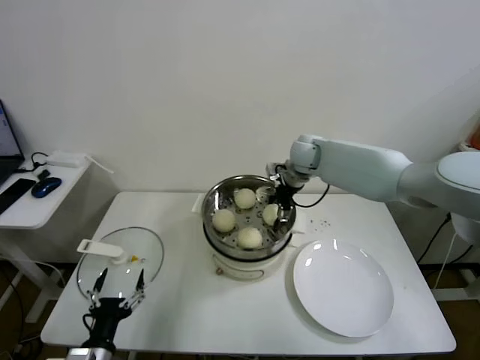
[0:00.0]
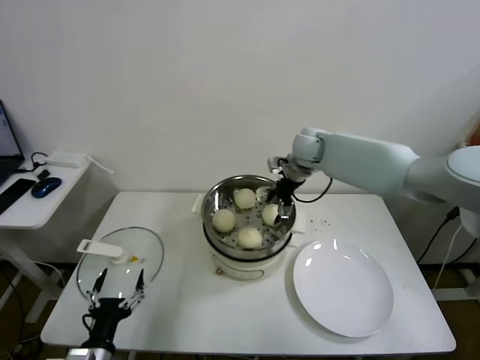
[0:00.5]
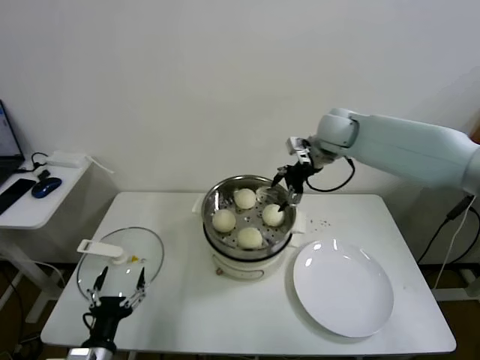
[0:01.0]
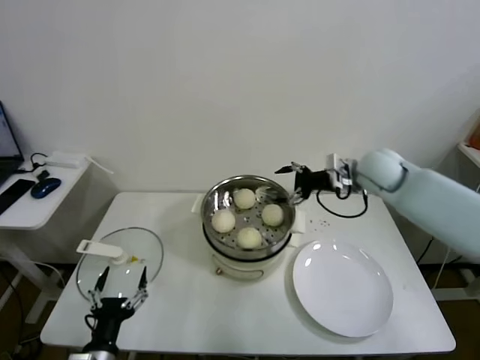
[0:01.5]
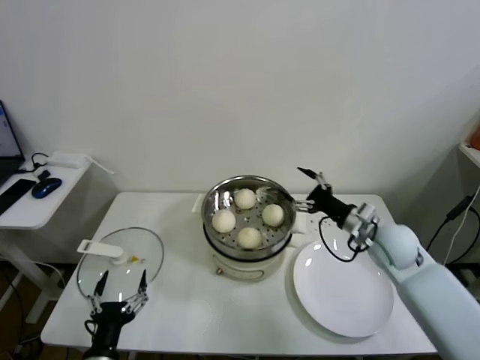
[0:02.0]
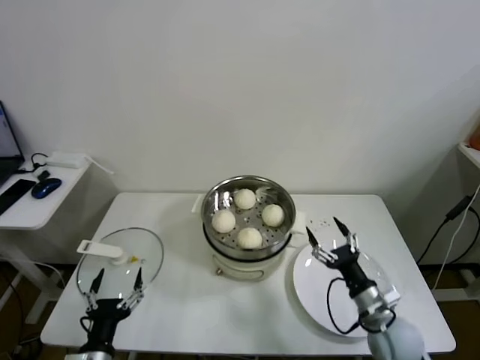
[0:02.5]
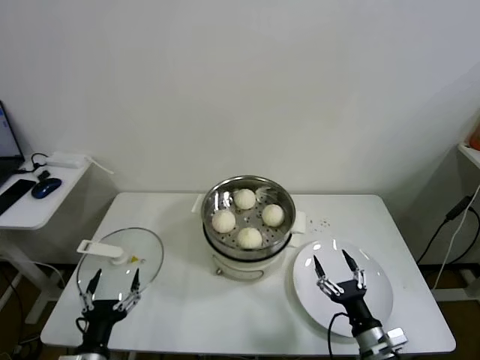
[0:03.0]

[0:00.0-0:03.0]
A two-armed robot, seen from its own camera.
Task of the whole recording: take steamed baozi put them in steamer.
0:00.0 to 0:01.5: The right gripper travels to the right and backward by approximately 15 cm, and opens up.
0:01.5 to 0:03.0: The right gripper travels backward and downward by about 40 cm.

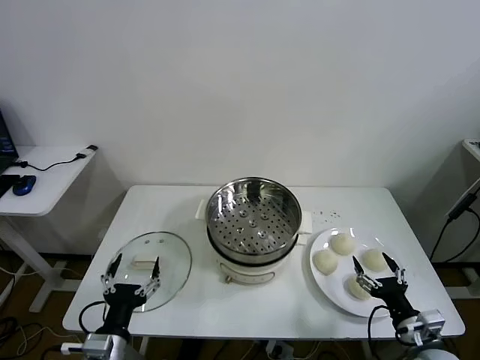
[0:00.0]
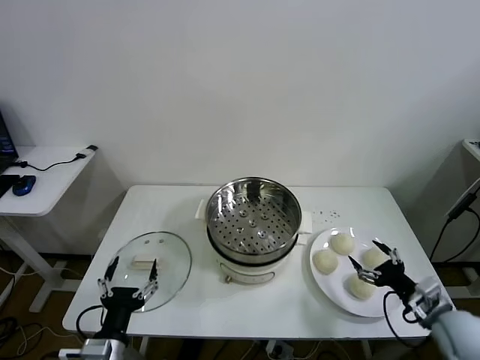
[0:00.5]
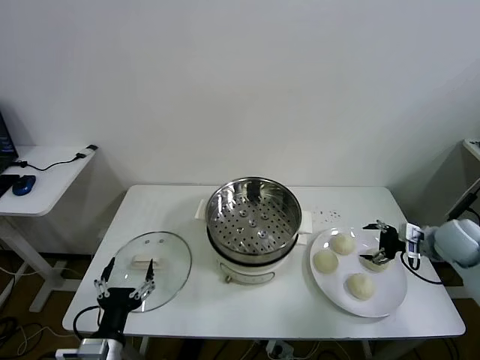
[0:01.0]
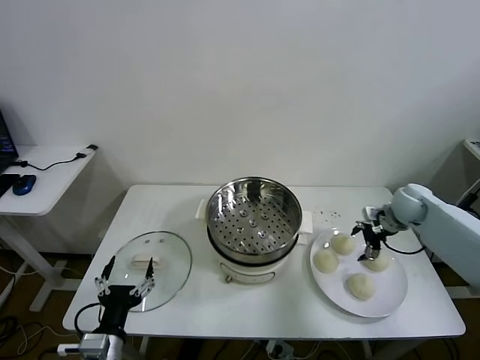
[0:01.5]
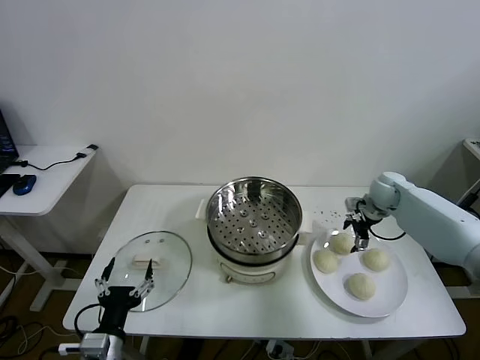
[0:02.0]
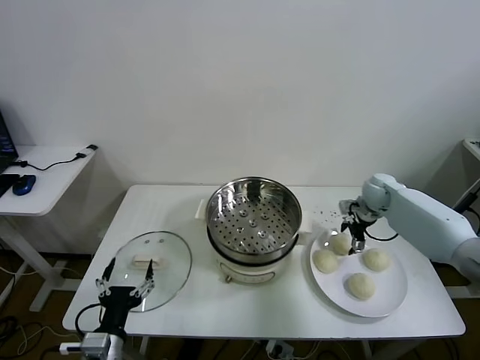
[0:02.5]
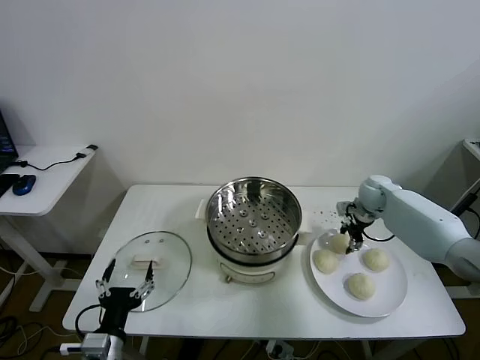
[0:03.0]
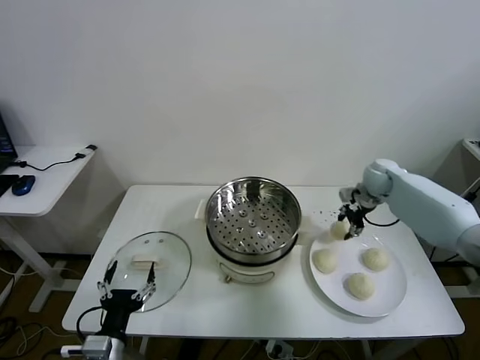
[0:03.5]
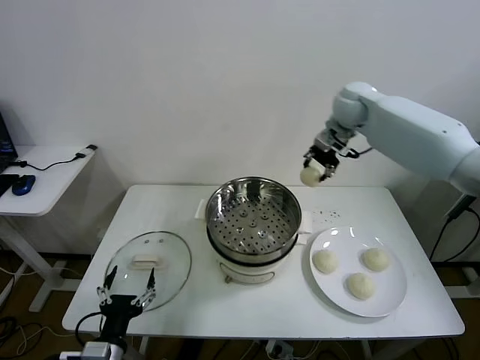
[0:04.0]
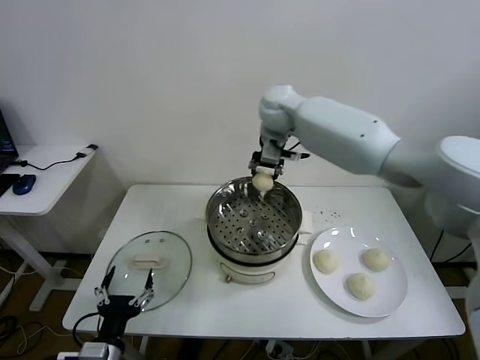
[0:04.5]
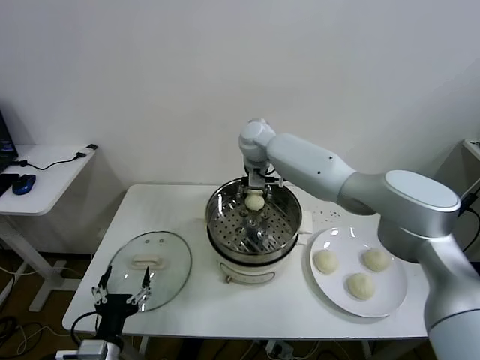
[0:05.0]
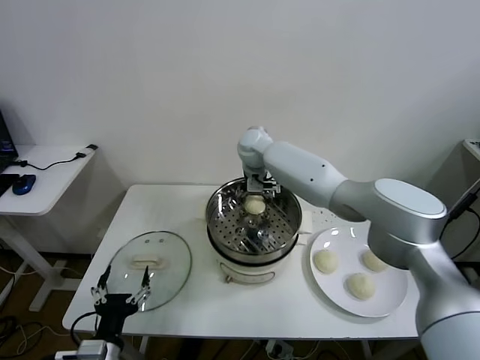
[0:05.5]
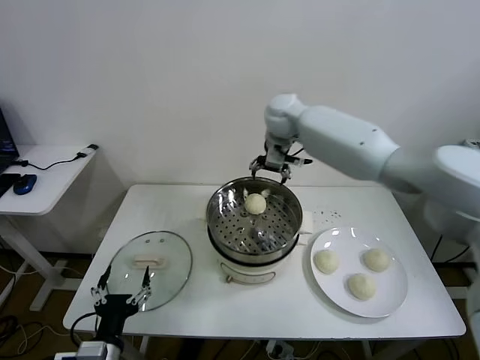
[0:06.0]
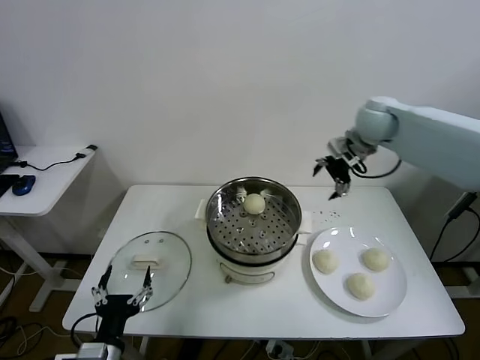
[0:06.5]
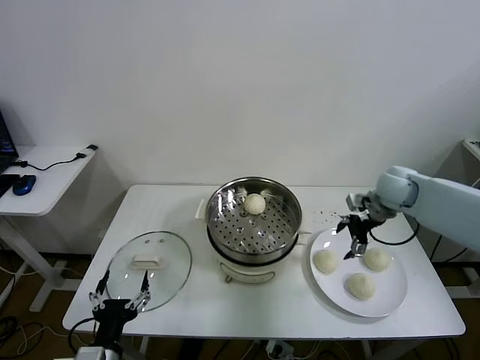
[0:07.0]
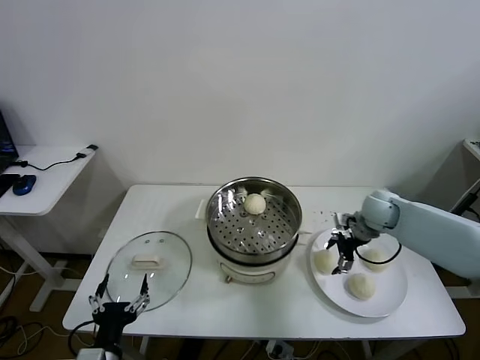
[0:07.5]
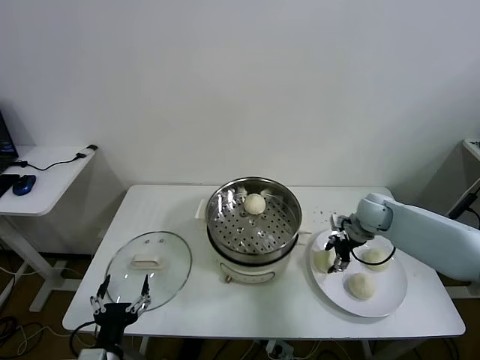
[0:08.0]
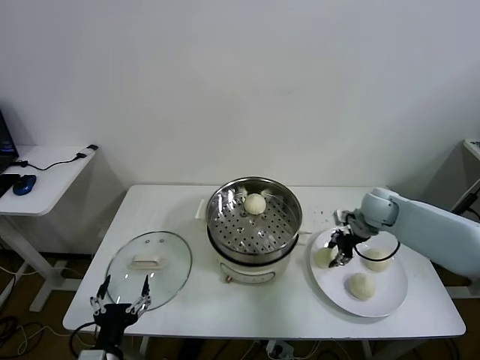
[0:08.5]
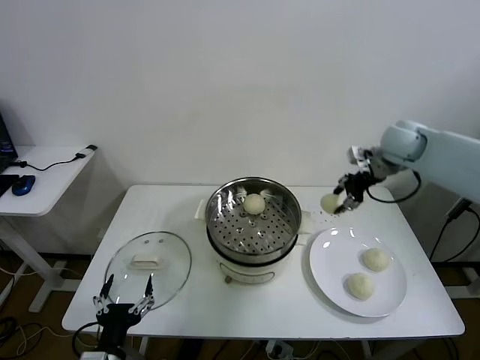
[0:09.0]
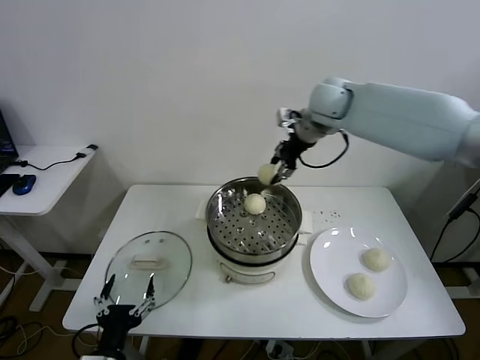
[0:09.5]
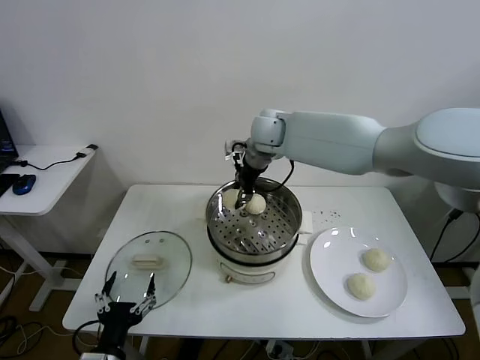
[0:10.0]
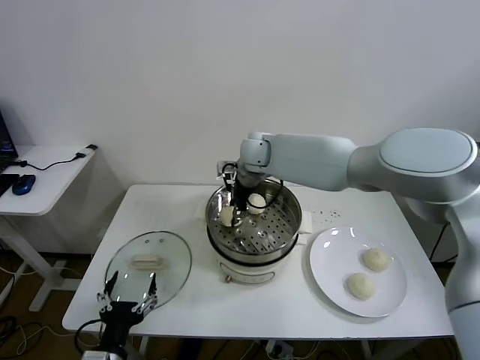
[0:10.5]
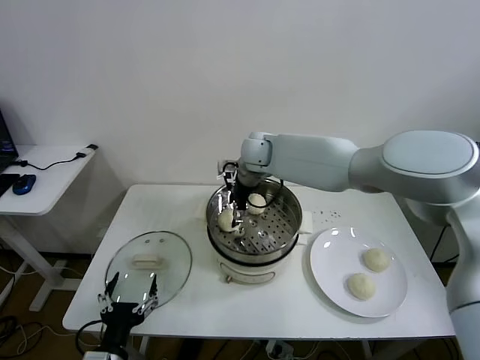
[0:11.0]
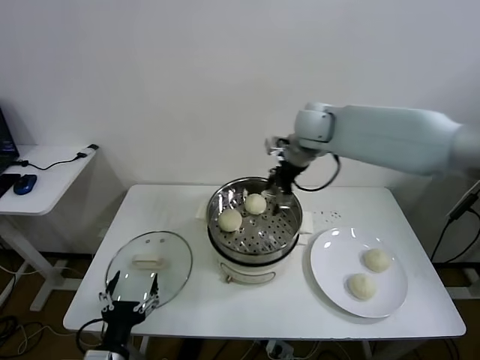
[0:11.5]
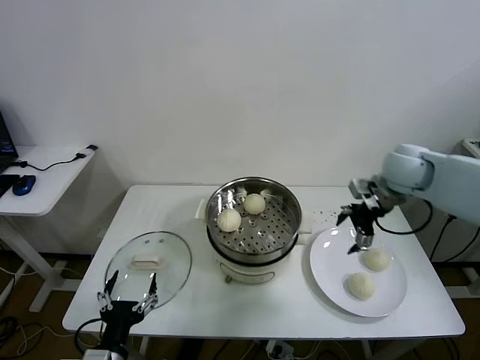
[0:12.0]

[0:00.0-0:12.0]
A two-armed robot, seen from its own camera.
Task of the whole recording: take steamed baozi put them in steamer.
Step, 0:00.0 to 0:02.5: Grasp the baozi in the plate with right gripper.
Step, 0:03.0 to 0:05.5: Place the baozi on the steamer with right gripper.
Step, 0:06.0 to 0:08.0: Grasp the baozi in the plate with right gripper.
Step, 0:08.5 to 0:11.0: Place the baozi on the steamer with right gripper.
0:02.0 to 0:04.0: The right gripper is displaced upward and to the left by roughly 30 cm, and closes its fingers.
0:04.0 to 0:06.0: The right gripper travels to the left by roughly 10 cm, and opens.
0:06.0 to 0:08.0: The right gripper goes about 35 cm downward, to the right and backward, and closes.
0:08.0 to 0:10.0: The right gripper moves to the left and upward, about 35 cm.
0:10.0 to 0:12.0: The right gripper is displaced to the right by approximately 30 cm, and opens up.

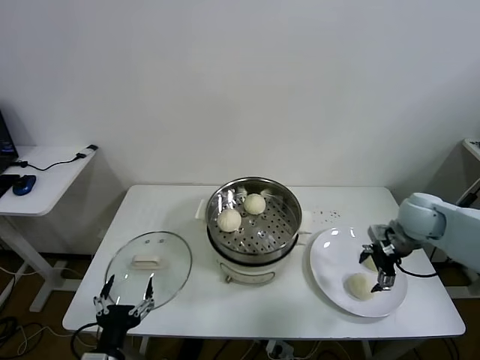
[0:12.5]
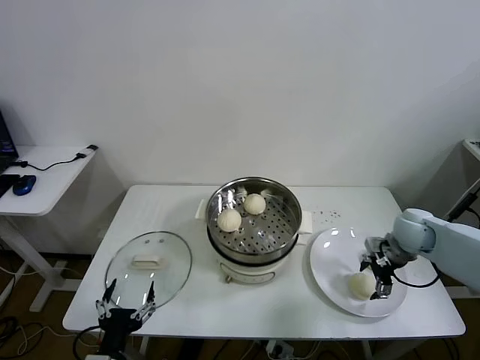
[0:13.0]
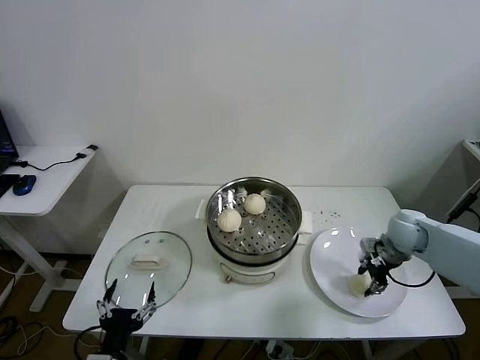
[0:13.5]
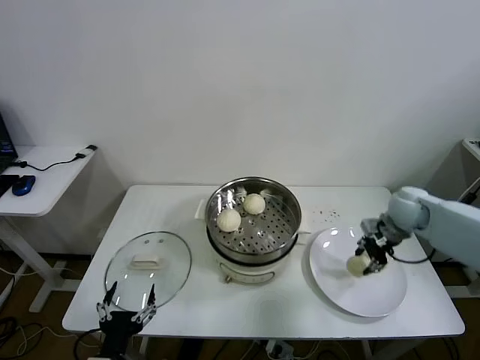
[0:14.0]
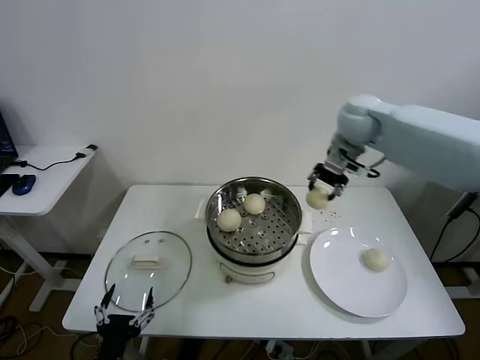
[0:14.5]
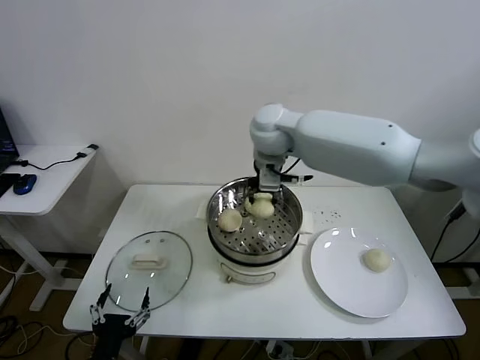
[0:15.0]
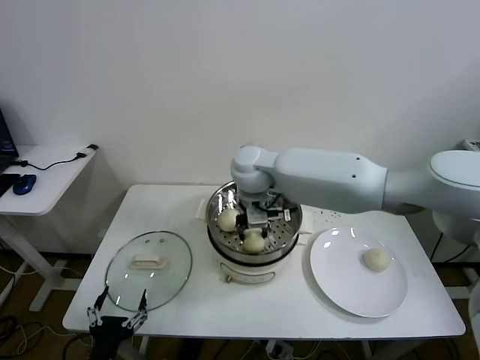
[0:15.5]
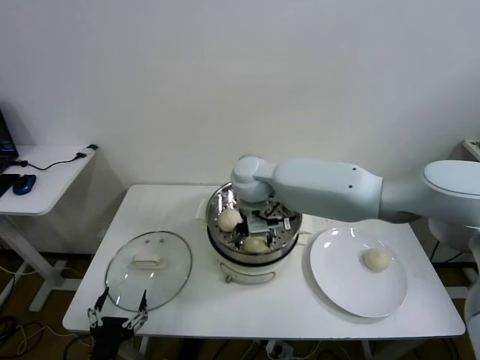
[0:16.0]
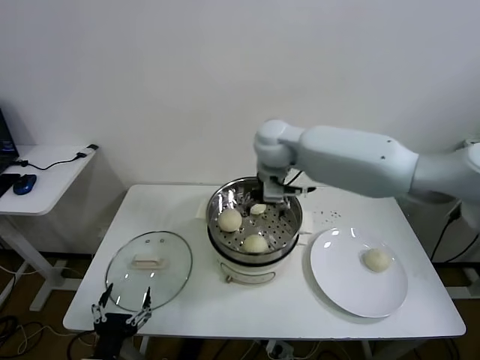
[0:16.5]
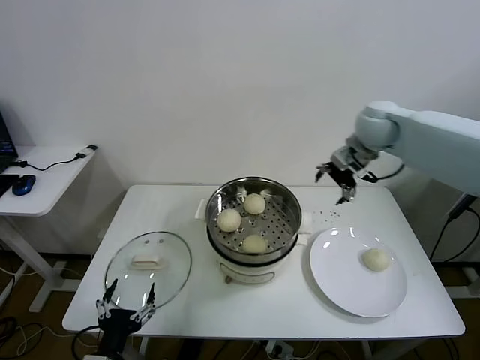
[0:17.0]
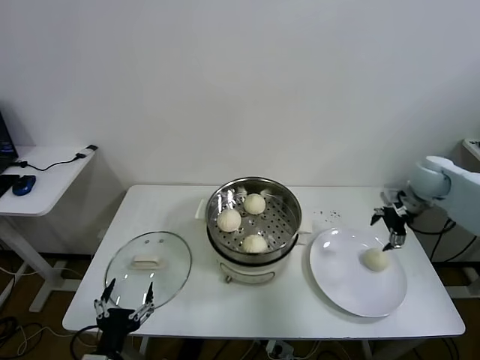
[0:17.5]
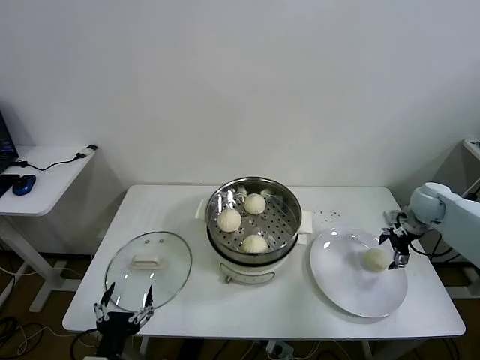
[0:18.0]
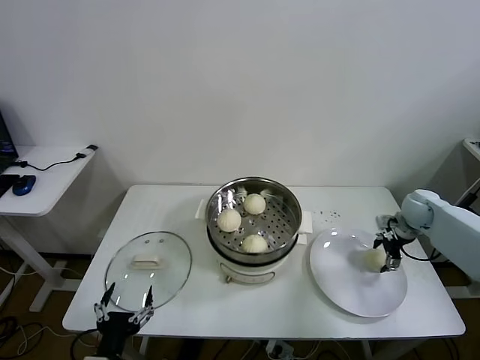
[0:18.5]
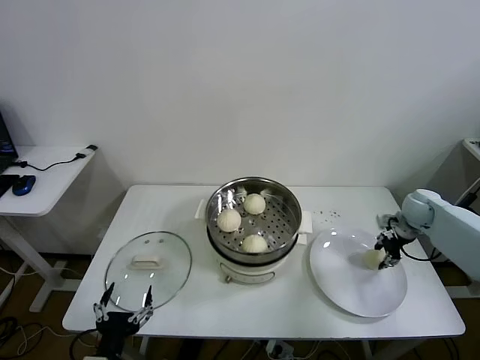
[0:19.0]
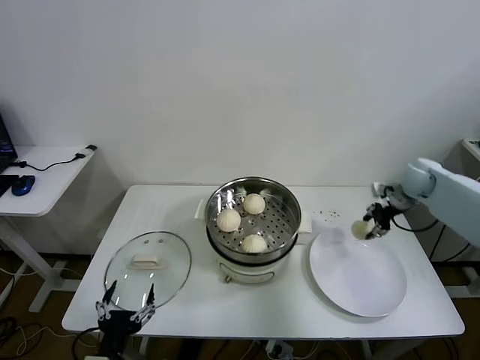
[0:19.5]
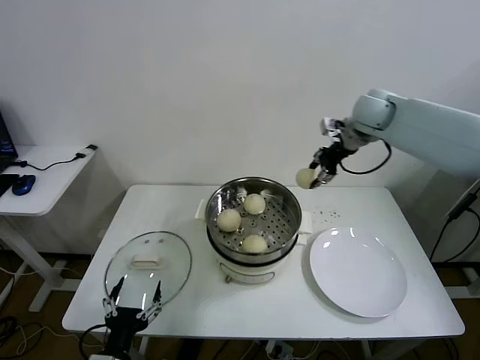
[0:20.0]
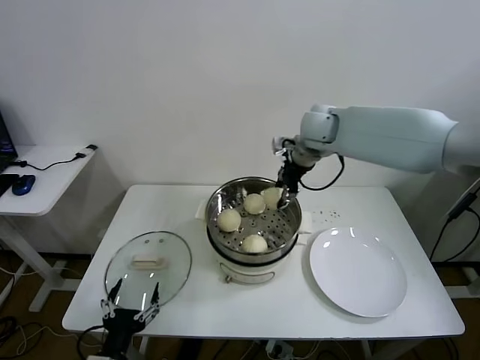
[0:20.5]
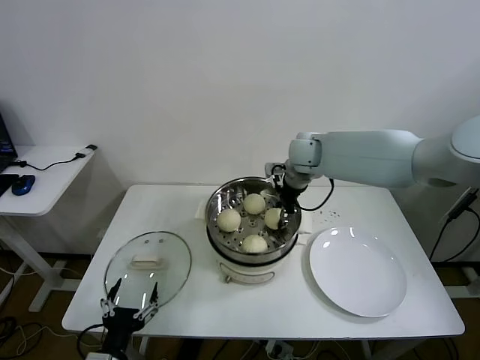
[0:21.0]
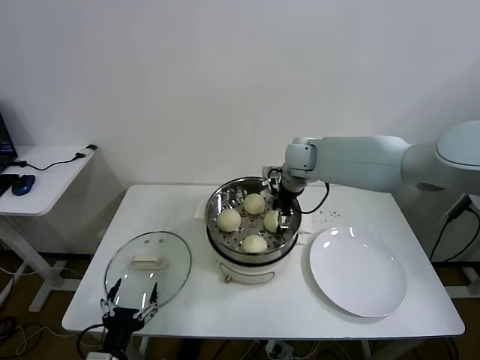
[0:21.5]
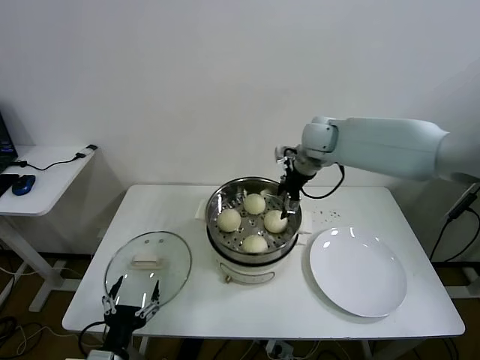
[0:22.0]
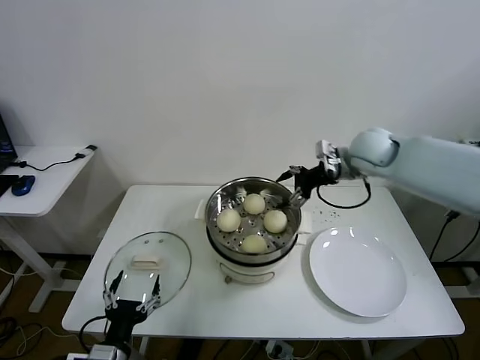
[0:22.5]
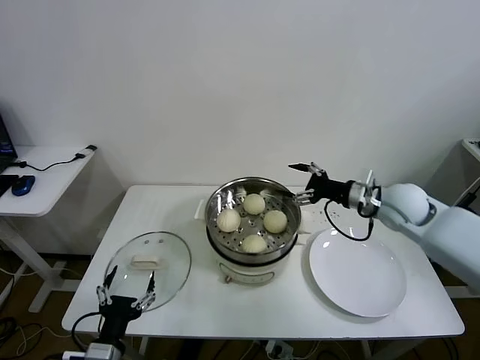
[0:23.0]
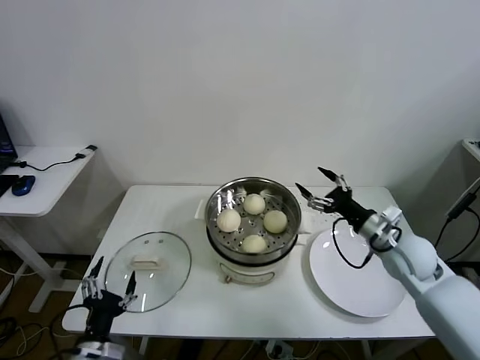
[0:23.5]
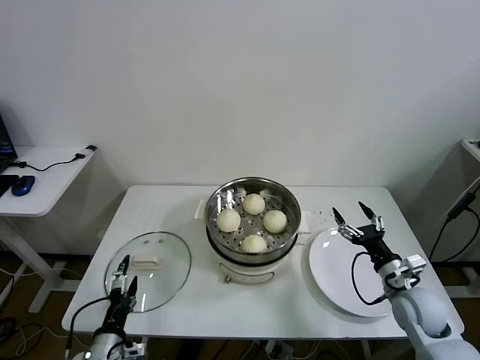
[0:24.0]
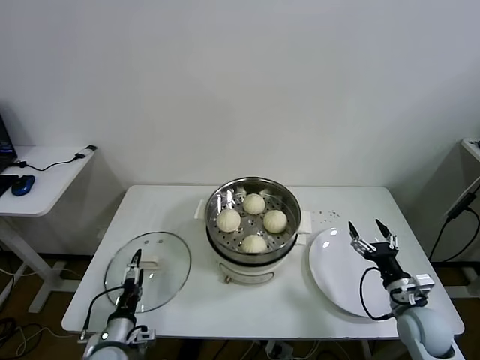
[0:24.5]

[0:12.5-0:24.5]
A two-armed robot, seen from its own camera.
Task of the whole recording: take steamed baozi put them in steamer.
Step, 0:13.5 to 0:16.0: Place the baozi on the steamer with right gripper.
Step, 0:16.5 to 0:18.5: Grasp the baozi in the plate with right gripper.
Step, 0:19.0 to 0:21.5: Place the baozi on the steamer with right gripper.
0:12.5 to 0:14.5: The right gripper goes roughly 30 cm upward, to the left and forward, and closes.
0:14.5 to 0:16.5: The right gripper heads to the left, covering some 15 cm, and opens.
0:16.5 to 0:18.5: The right gripper goes some 40 cm to the right and downward.
0:18.5 to 0:20.5: The right gripper goes approximately 35 cm to the left and upward, and closes up.
0:20.5 to 0:22.5: The right gripper travels to the right by roughly 10 cm, and opens.
0:22.5 to 0:24.5: The left gripper shifts about 10 cm downward and forward, while the right gripper moves downward and backward, some 40 cm.
